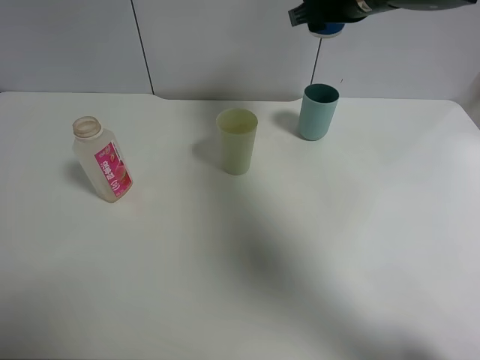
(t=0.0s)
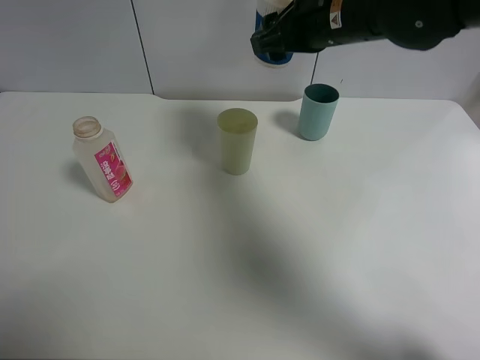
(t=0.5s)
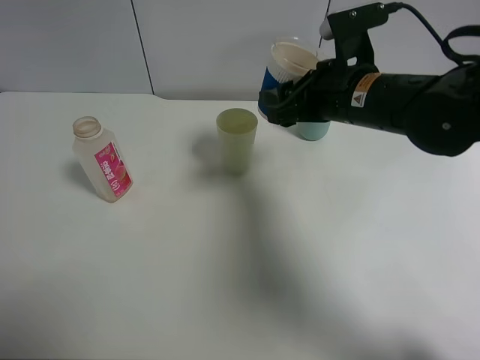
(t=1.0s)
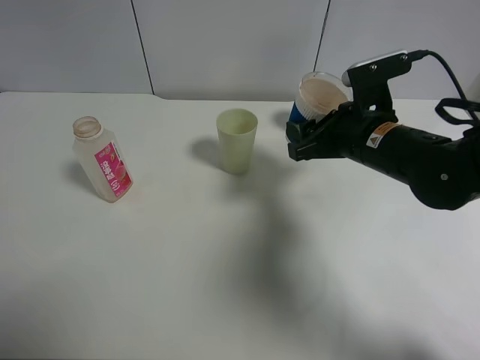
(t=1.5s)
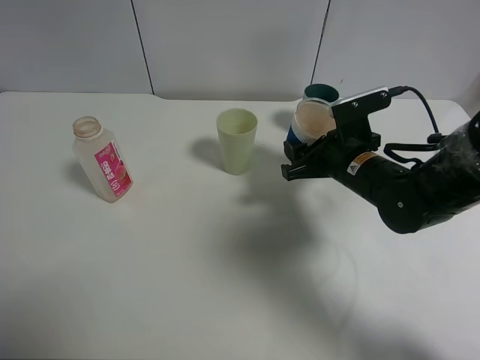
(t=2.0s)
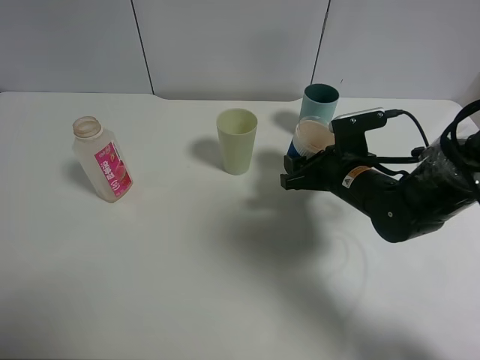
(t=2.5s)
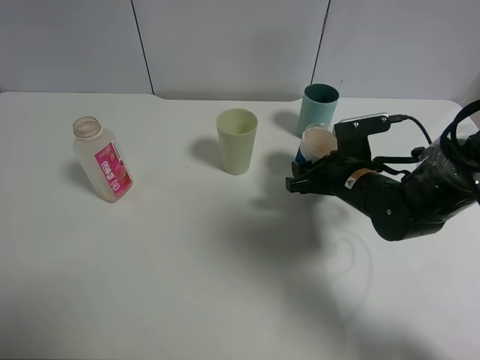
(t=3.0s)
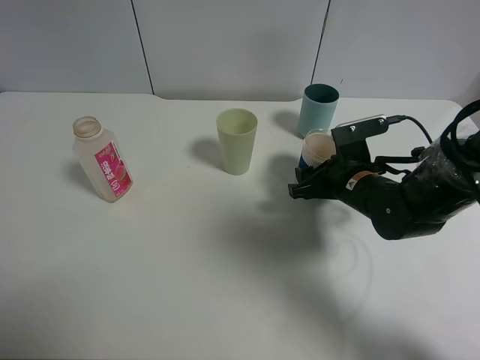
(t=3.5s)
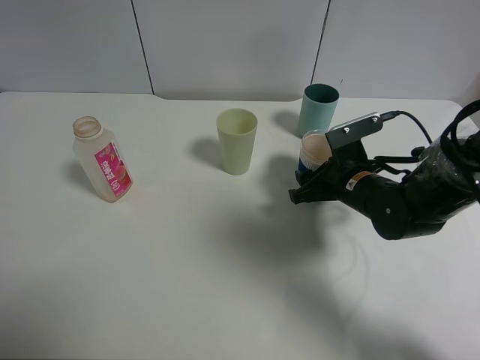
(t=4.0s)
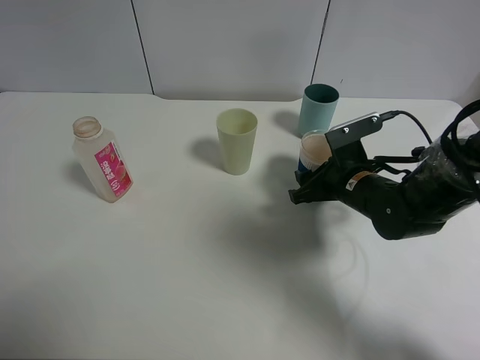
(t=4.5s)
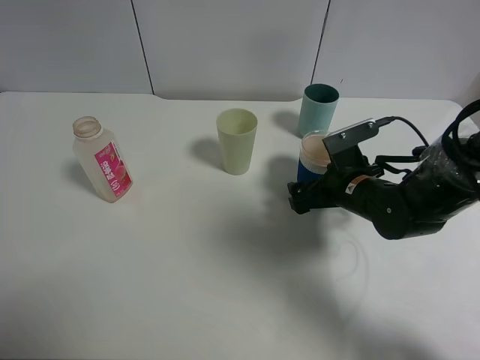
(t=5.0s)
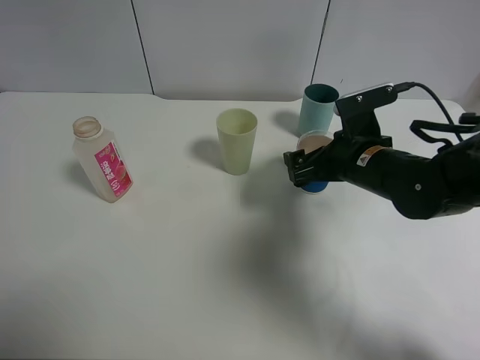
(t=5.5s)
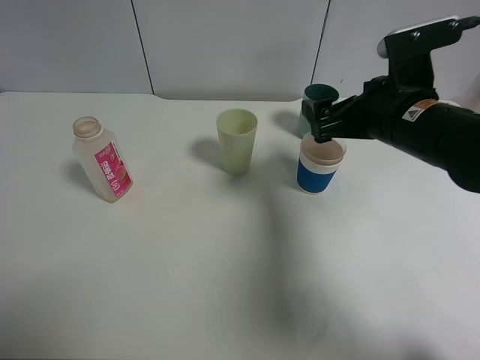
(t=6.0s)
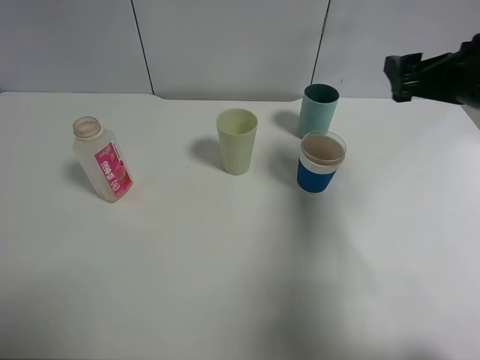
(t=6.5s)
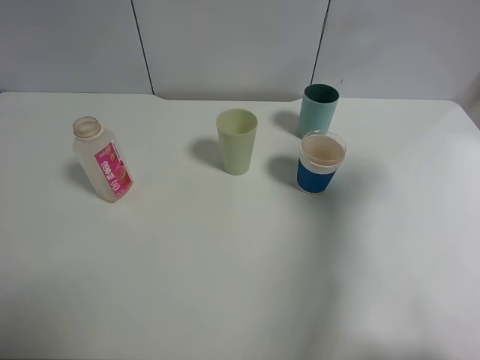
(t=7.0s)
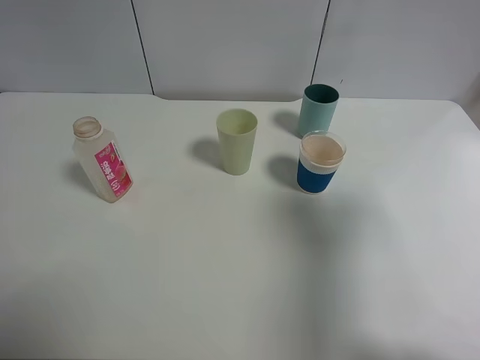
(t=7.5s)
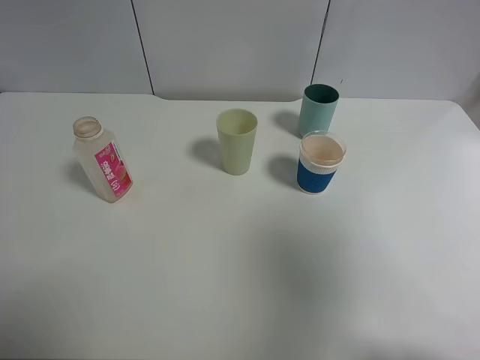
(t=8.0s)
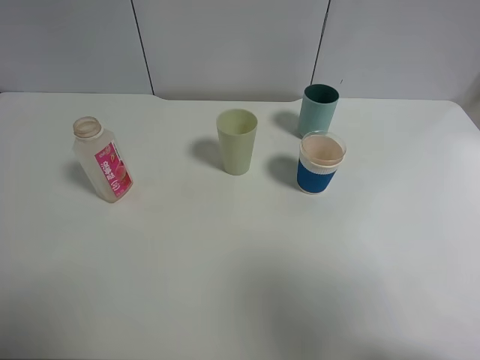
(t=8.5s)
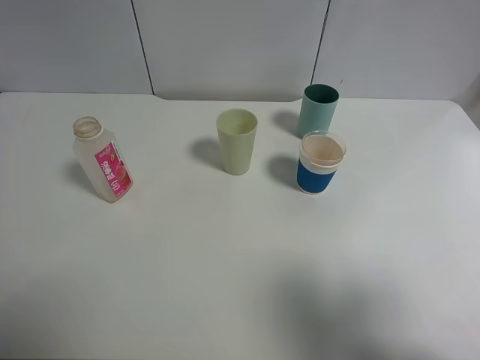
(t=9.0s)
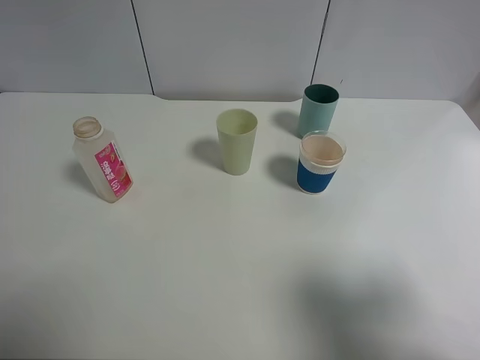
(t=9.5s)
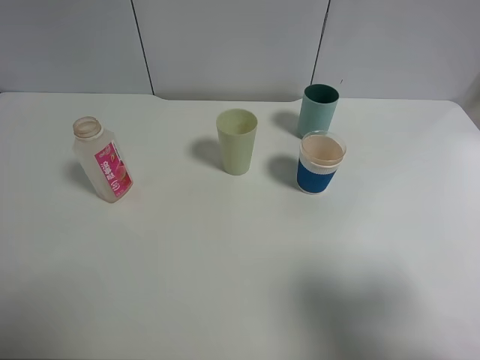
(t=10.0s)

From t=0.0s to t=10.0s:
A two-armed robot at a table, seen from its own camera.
Task of the whole recording: use a clamp to hold the bottle of the drink, pour the beverage into a random cup, then clamp the cup containing the drink and pour the drink into another random cup.
Step, from t=0.0s to t=4.5s: Place the paper cup on the table with right gripper.
From t=0.0s to t=2.0s: The right gripper moves downward and backward, some 20 cm.
From t=2.0s to t=4.0s: There are only small adjustments of the grippers.
From t=4.0s to t=6.0s: The right gripper travels upward by about 15 cm, and opens up.
From t=6.0s to t=8.0s: The right gripper heads backward, upward and to the right, covering approximately 30 cm.
From t=8.0s to t=10.0s: The right gripper travels downward by some 10 cm.

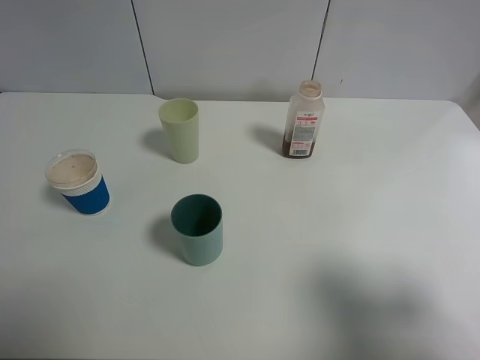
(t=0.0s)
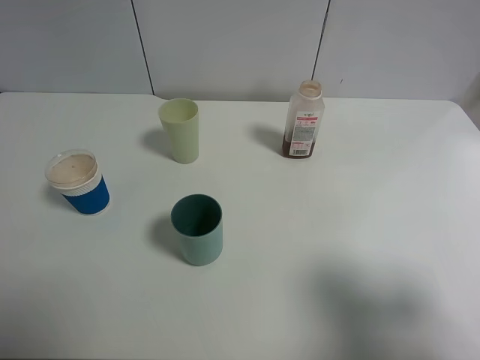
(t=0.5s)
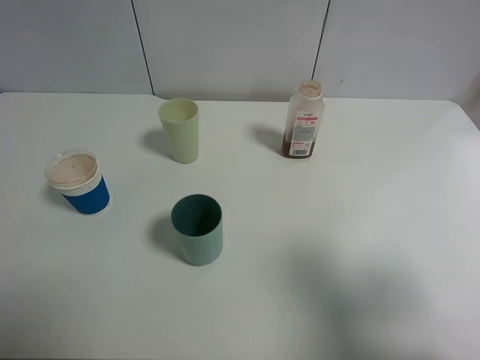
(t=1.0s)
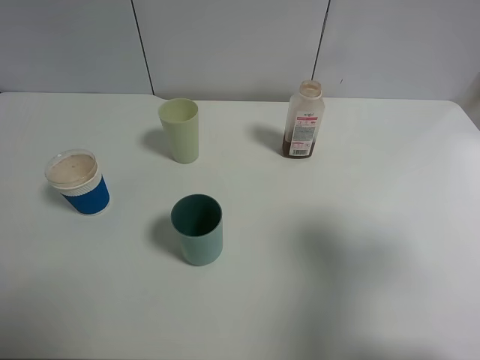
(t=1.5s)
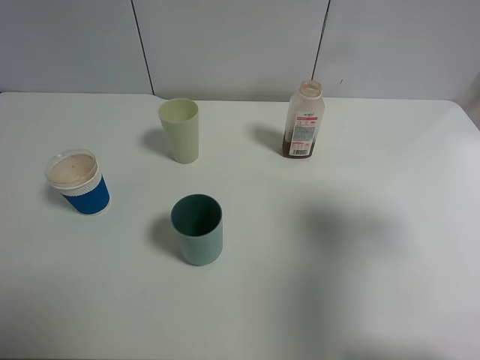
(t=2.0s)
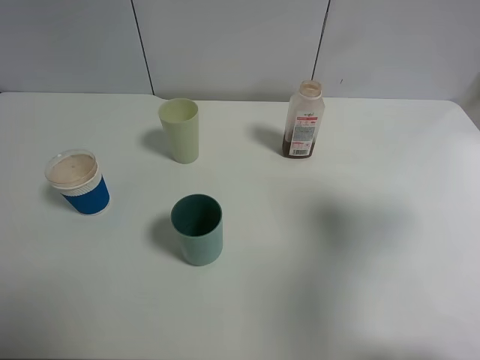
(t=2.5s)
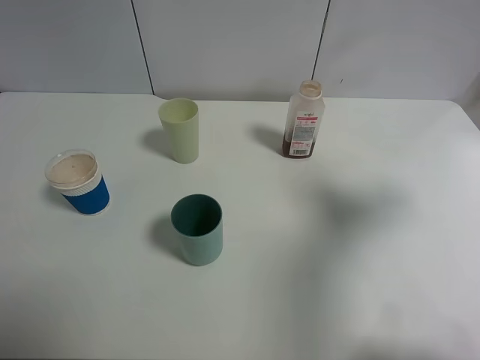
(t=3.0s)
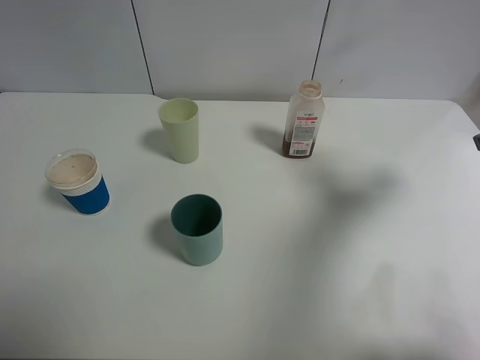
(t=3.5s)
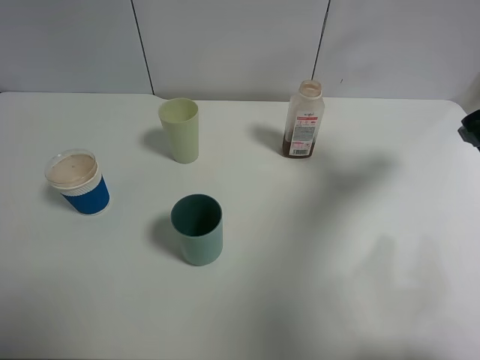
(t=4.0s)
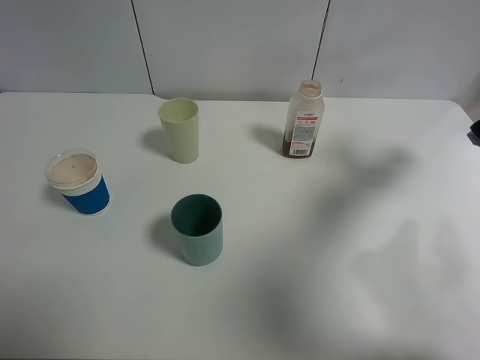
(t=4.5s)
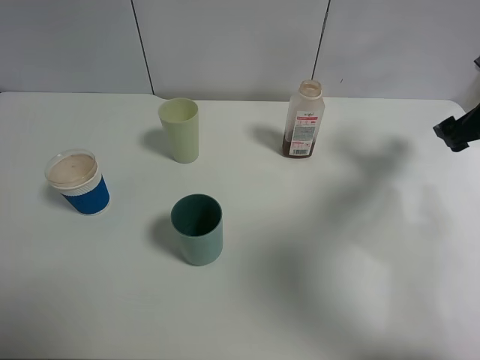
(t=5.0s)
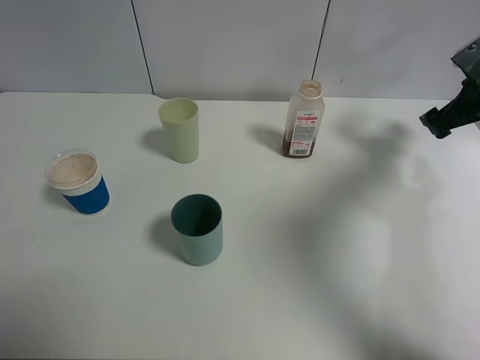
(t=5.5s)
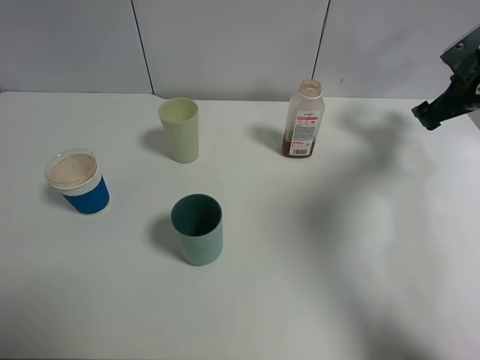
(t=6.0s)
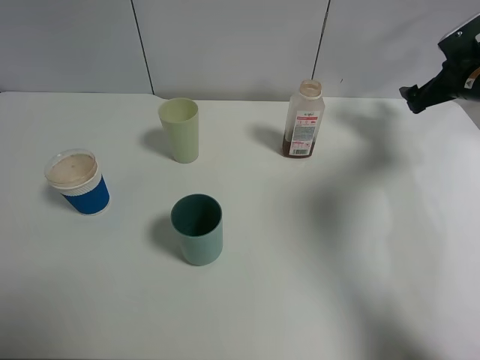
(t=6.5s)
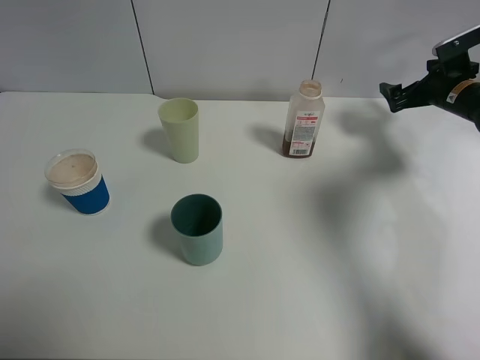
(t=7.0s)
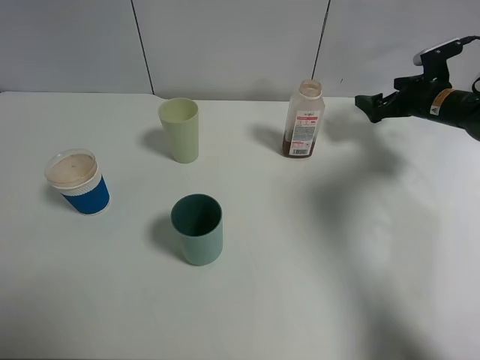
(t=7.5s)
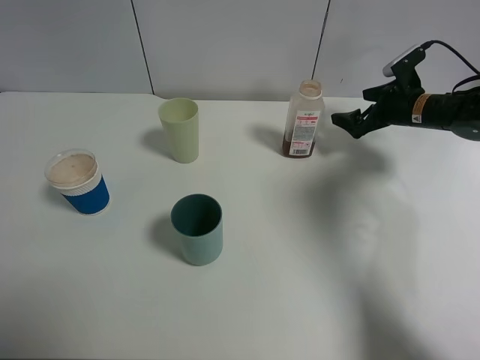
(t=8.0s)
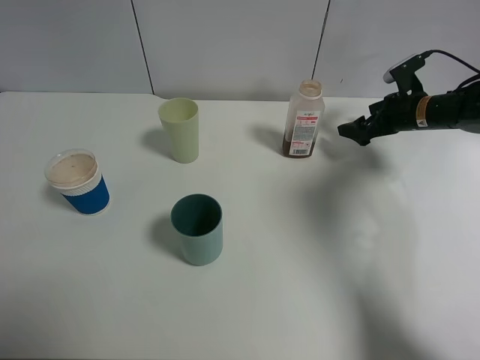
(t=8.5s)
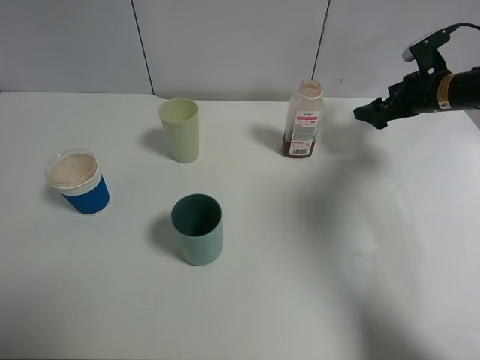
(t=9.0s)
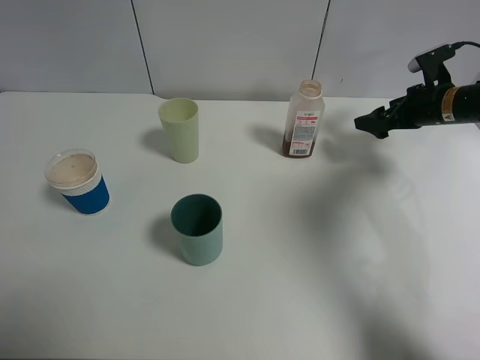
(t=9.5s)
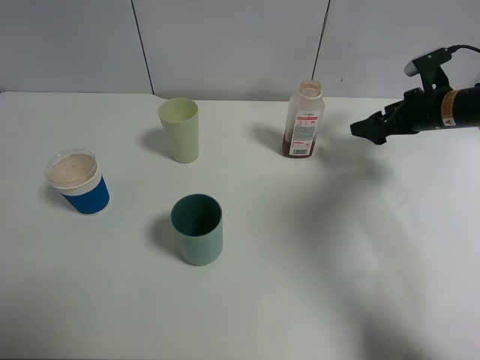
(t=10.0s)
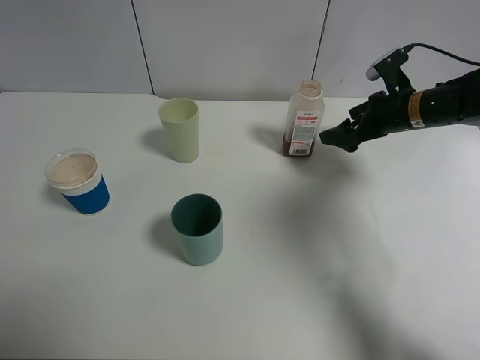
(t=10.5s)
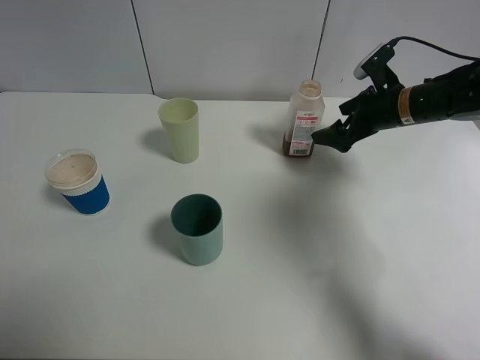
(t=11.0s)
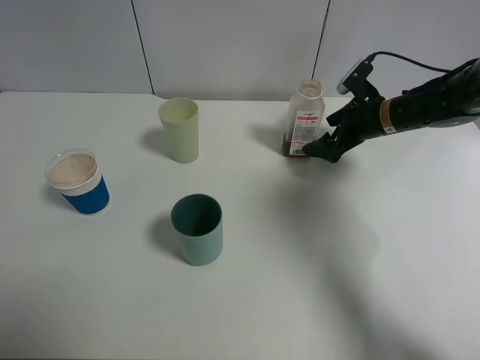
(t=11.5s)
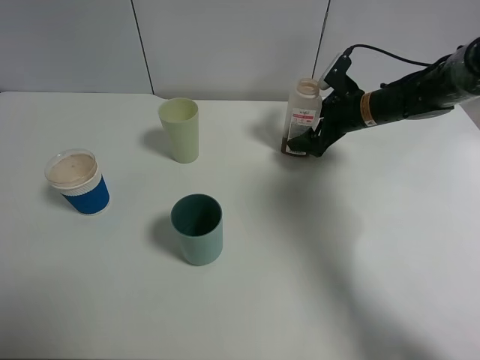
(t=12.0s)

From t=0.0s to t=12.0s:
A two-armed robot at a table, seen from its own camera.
Task of the whole recording: use a clamp to hold the bottle of the drink, pour the beverage into a random cup, then clamp the cup containing the drink and pour the drink into another random cup.
From t=0.0s to t=2.0s: The right gripper moves forward, approximately 10 cm.
From t=2.0s to t=4.0s: The right gripper travels forward by approximately 15 cm.
From t=4.0s to t=6.0s: The right gripper heads forward, downward and to the right, covering about 20 cm.
From t=6.0s to t=8.0s: The right gripper shifts approximately 10 cm to the left and downward.
From t=8.0s to t=10.0s: The right gripper changes place by approximately 5 cm.
From t=10.0s to t=12.0s: The right gripper goes approximately 10 cm to the left.

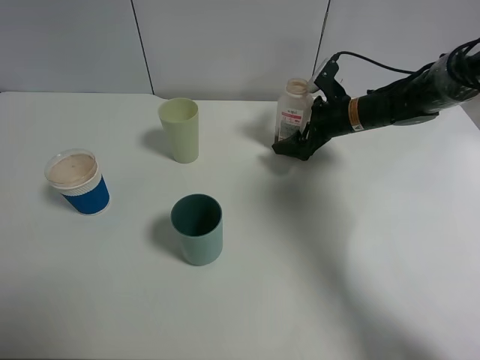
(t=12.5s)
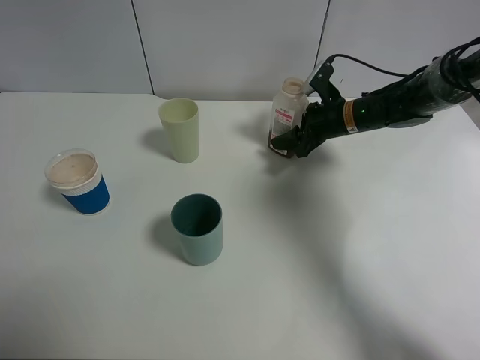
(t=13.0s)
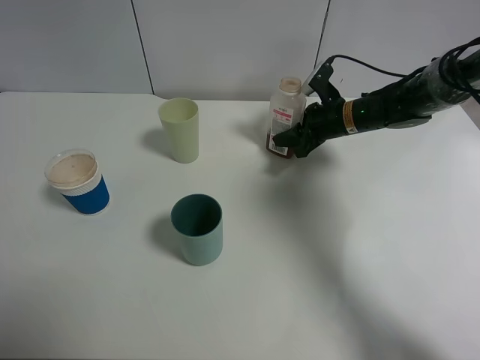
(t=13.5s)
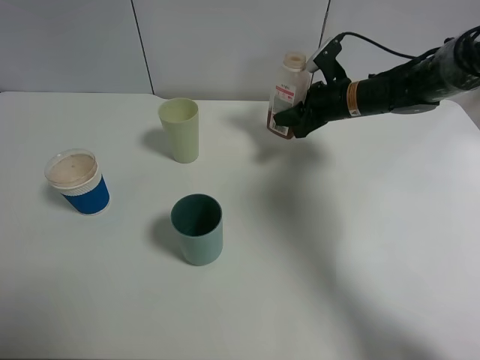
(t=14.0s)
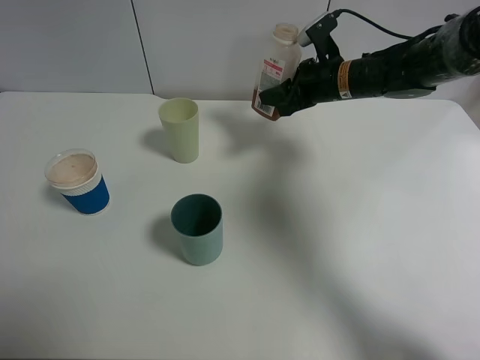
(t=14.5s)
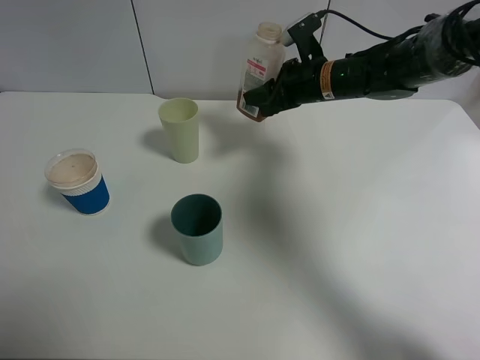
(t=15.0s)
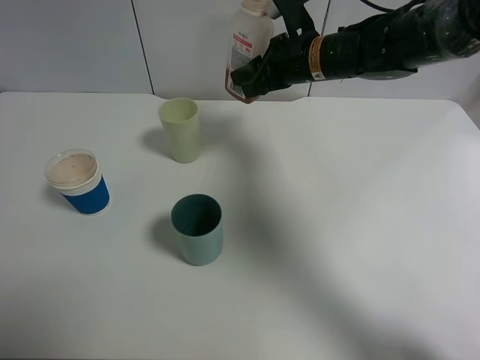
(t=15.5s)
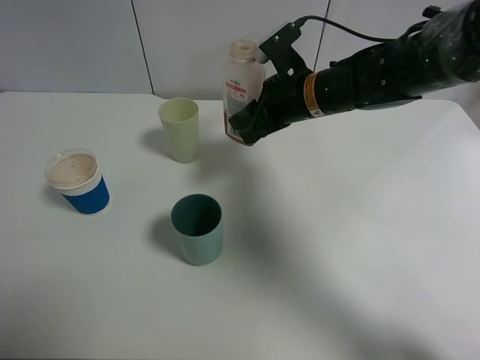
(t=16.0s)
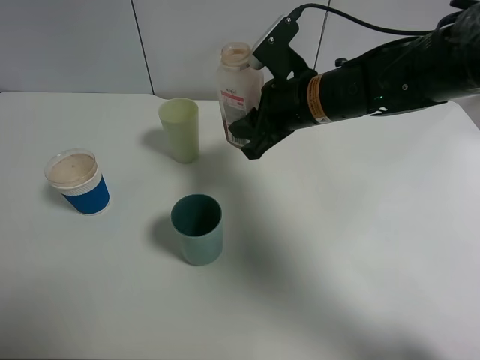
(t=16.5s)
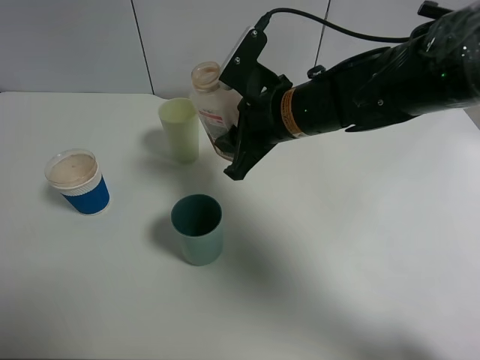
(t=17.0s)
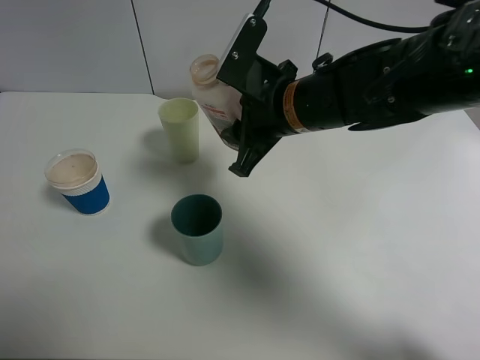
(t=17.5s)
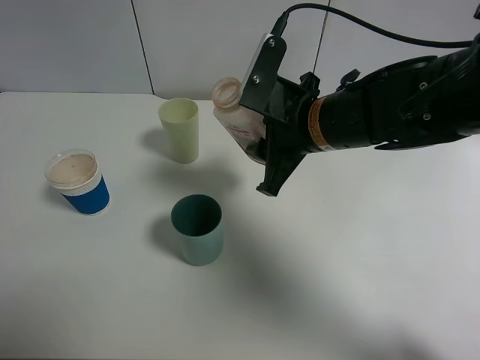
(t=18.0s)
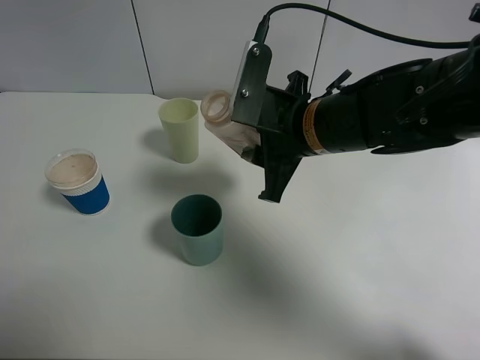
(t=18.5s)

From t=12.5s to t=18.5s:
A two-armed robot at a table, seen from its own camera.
Task of the whole recording: use a clamp to hold the bottle of the drink, pour the beverage into a random cup, then clamp the cup containing the drink and pour the drink into another random cup.
From t=12.5s to t=14.5s: The right gripper shifts approximately 5 cm upward, and closes.
From t=14.5s to t=16.5s: The right gripper shifts approximately 15 cm backward and to the left.
From t=16.5s to t=18.5s: The right gripper moves backward, some 5 cm.
